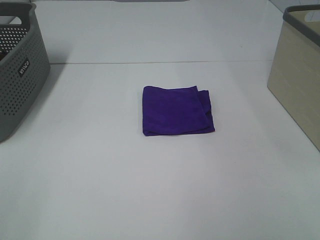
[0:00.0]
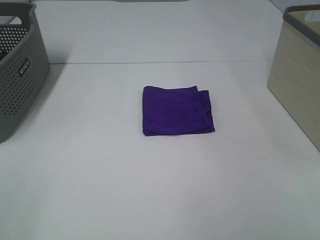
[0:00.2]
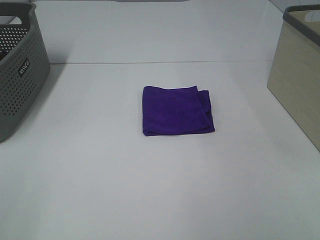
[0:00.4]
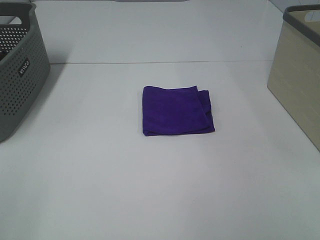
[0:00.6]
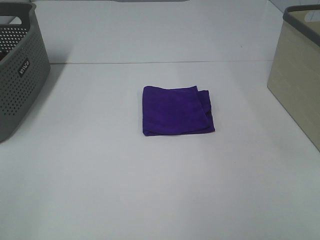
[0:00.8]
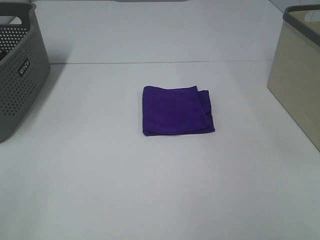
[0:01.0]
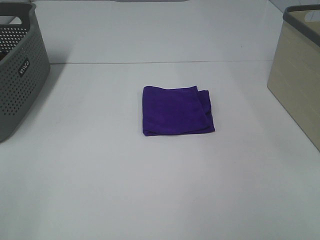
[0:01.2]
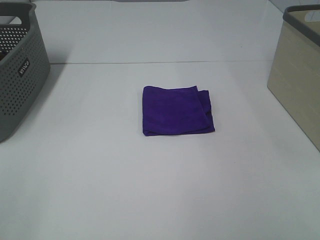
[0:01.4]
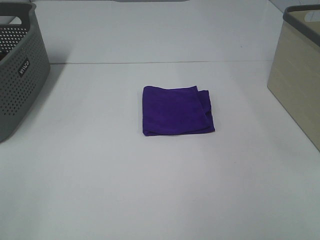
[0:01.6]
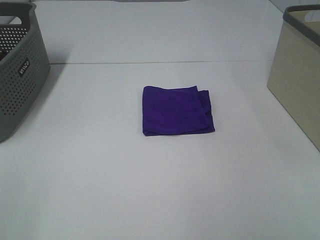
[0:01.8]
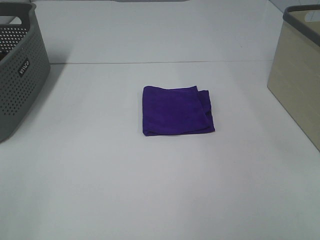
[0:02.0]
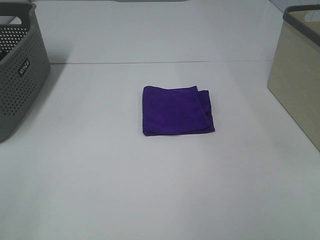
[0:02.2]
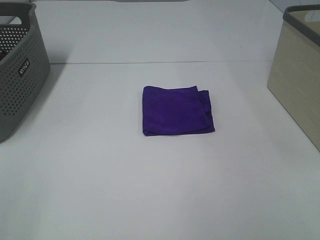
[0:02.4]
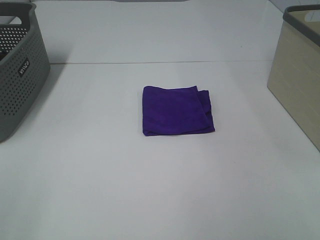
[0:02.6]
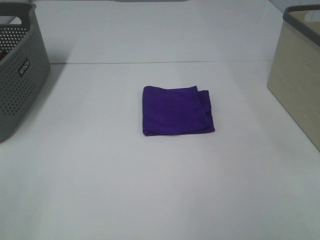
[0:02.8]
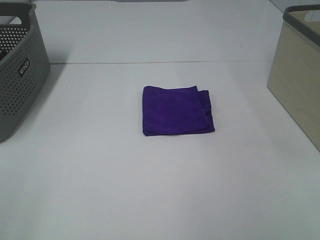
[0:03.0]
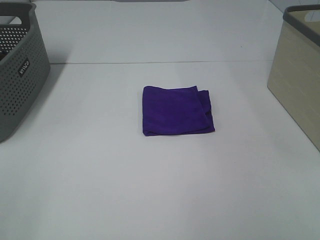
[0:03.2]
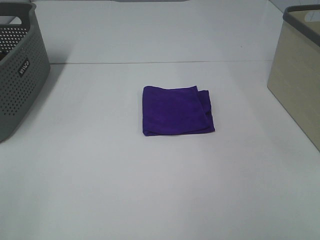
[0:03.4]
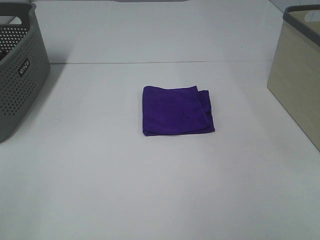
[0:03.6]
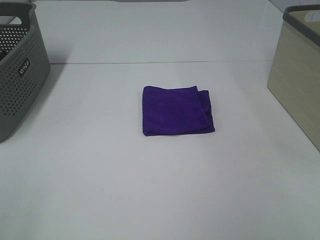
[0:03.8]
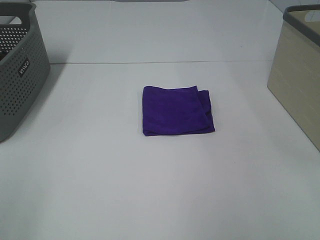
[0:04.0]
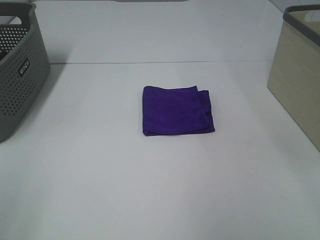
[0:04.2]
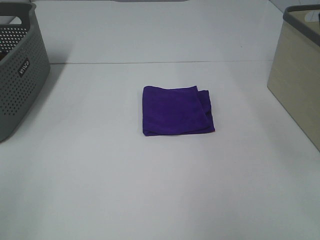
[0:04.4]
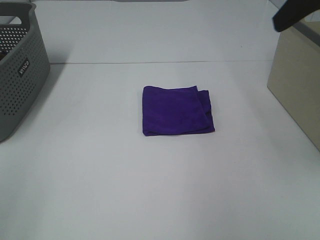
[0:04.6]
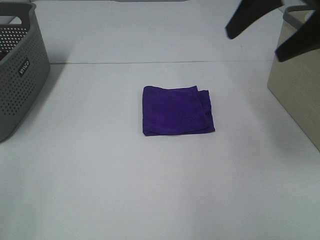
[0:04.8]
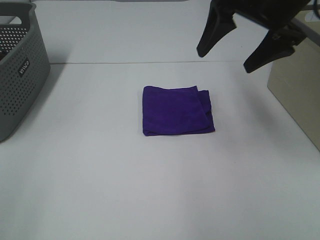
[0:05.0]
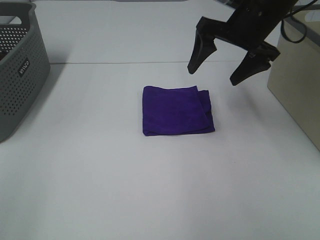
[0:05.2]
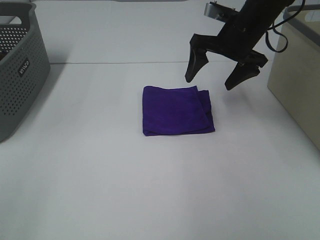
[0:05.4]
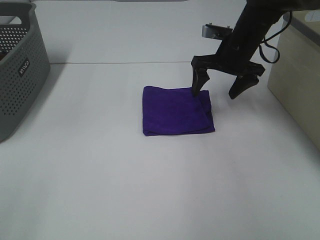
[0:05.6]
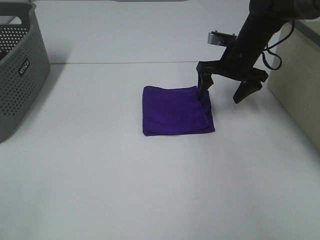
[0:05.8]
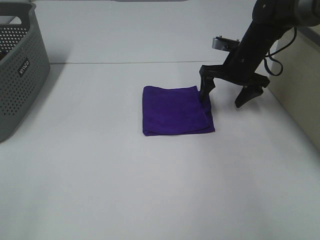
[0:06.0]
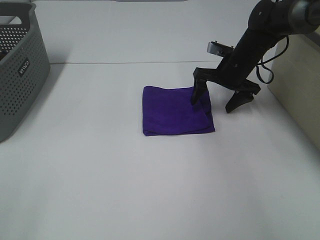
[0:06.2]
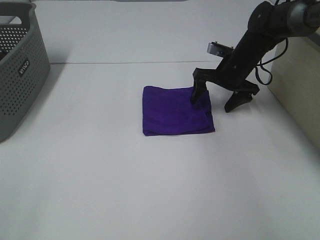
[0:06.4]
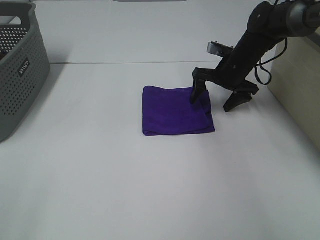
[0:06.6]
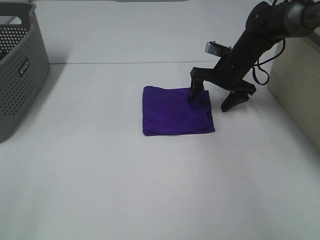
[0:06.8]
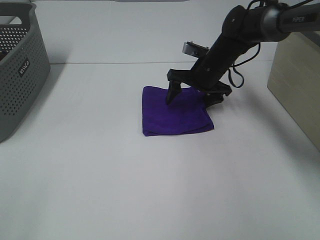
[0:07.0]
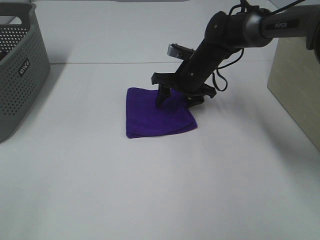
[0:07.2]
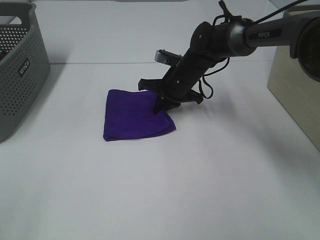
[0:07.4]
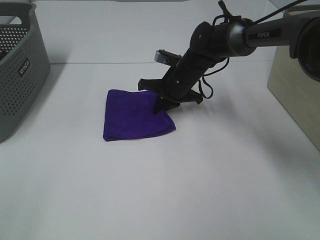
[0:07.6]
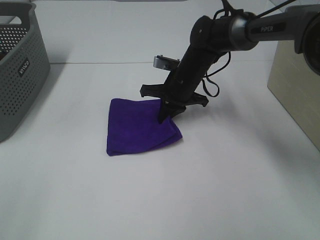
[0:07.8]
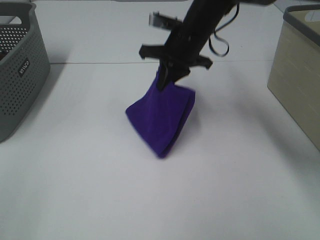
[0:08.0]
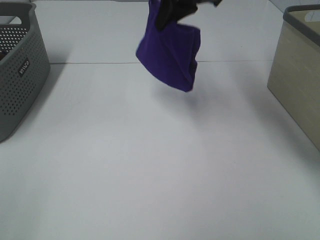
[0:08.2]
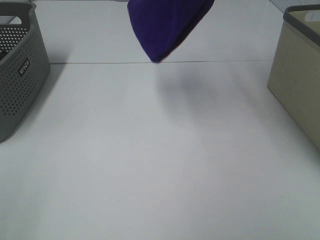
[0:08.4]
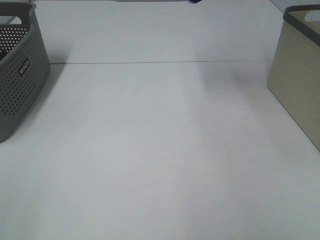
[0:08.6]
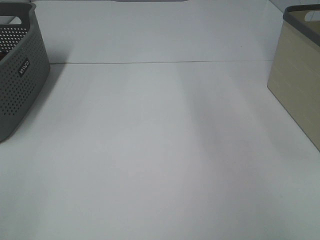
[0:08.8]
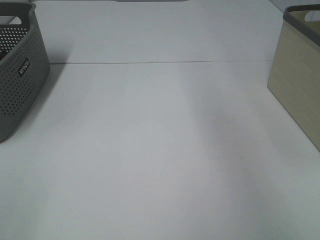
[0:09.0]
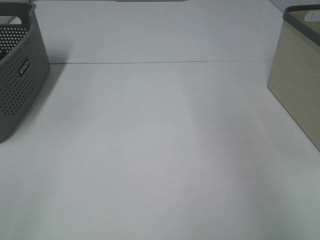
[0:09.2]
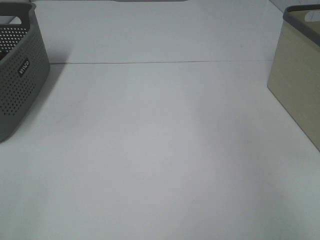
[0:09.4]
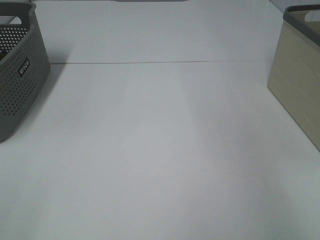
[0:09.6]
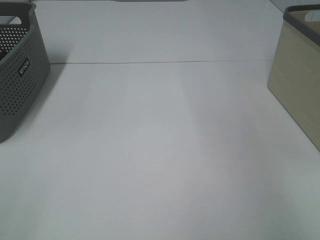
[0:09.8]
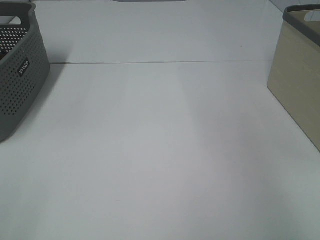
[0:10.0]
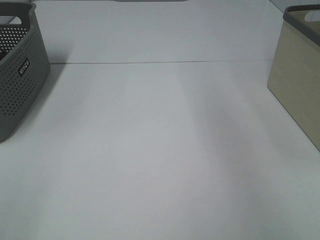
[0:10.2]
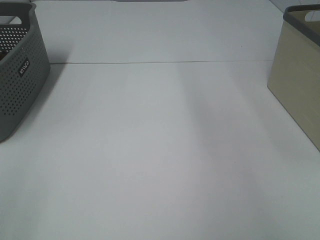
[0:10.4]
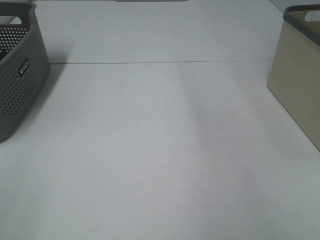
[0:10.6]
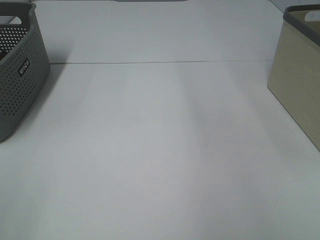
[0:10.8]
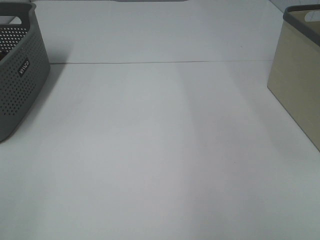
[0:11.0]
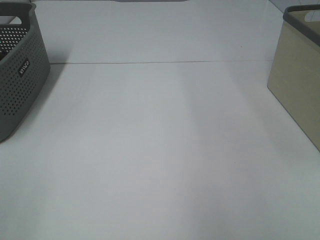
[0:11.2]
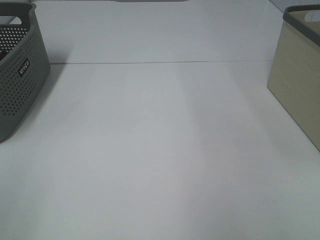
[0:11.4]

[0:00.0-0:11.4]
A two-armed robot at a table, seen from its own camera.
Step, 0:00.0 to 0:07.4: Right hand: grab the folded purple towel.
Step, 0:07.6 to 0:10.0: Right hand: place the purple towel in right basket.
0:00.0 to 0:02.8: Both grippers stay about where they are.
0:04.2 to 0:05.6: The right gripper goes some 40 cm forward and downward.
0:05.6 to 0:07.2: The right gripper travels to the left and downward by approximately 10 cm.
0:07.2 to 0:08.6: The right gripper travels upward by roughly 40 cm, and closes its fingers.

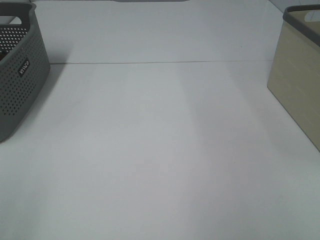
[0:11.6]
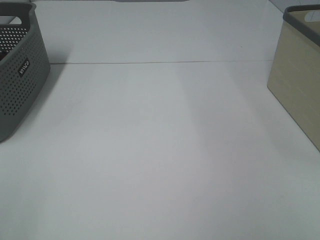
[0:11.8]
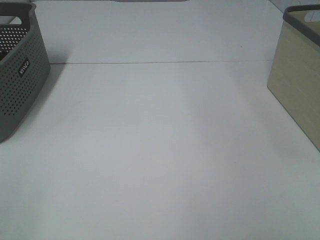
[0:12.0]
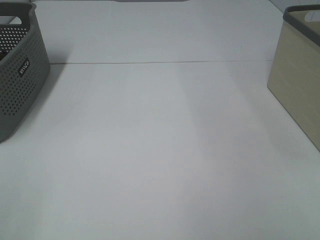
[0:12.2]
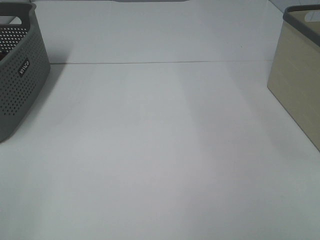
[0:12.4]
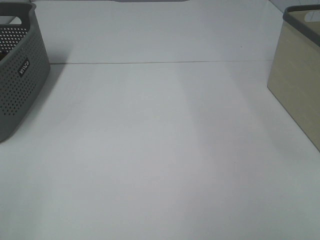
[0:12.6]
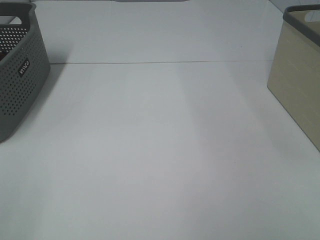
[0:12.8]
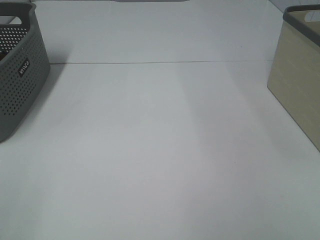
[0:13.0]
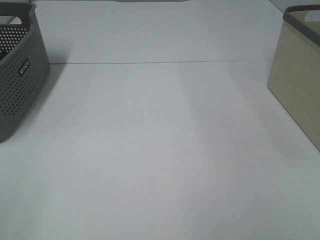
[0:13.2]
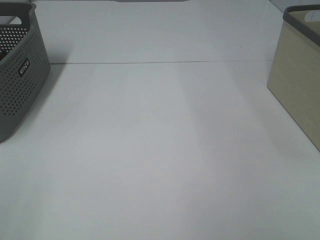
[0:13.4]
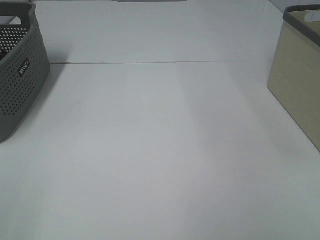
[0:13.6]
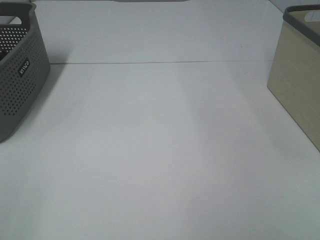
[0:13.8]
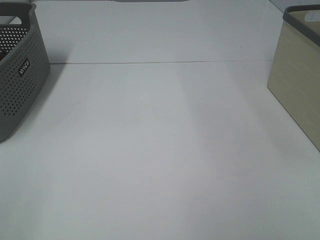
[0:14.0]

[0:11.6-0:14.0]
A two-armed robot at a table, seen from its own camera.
0:12.8 to 0:14.0: Both grippers stay put.

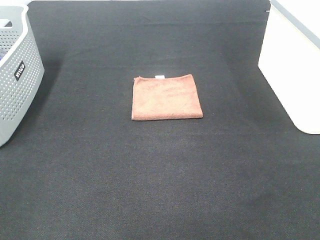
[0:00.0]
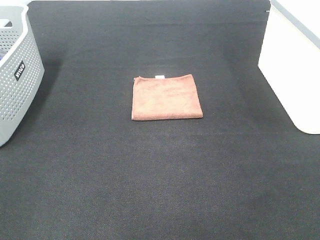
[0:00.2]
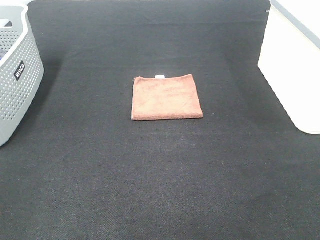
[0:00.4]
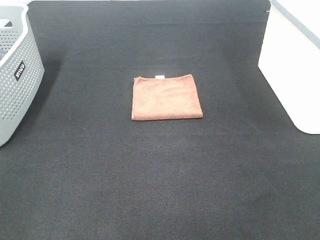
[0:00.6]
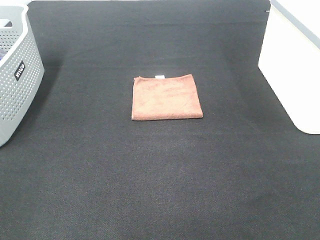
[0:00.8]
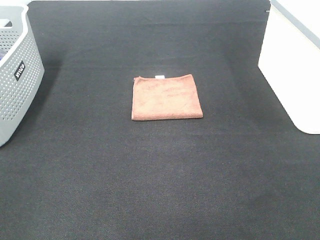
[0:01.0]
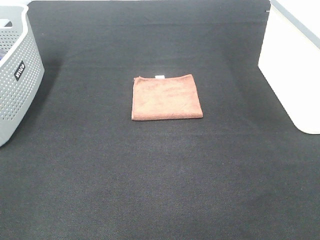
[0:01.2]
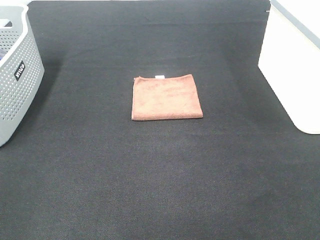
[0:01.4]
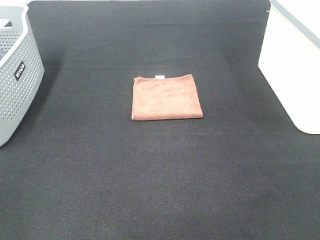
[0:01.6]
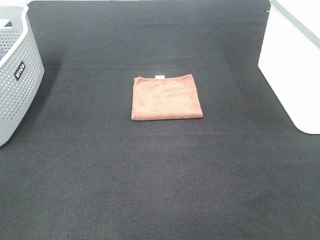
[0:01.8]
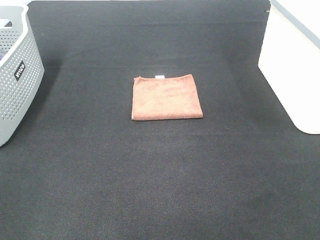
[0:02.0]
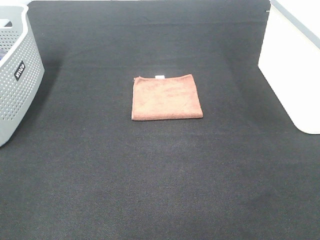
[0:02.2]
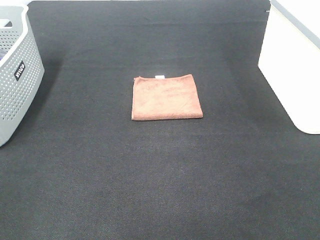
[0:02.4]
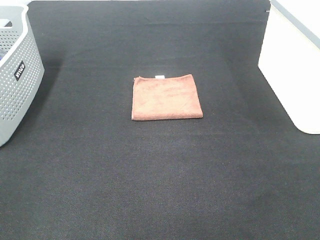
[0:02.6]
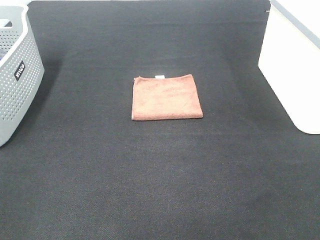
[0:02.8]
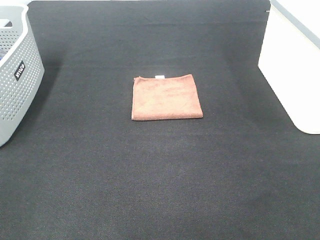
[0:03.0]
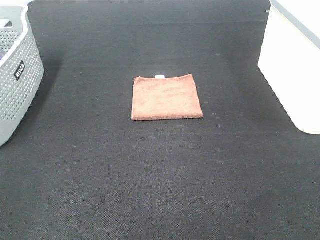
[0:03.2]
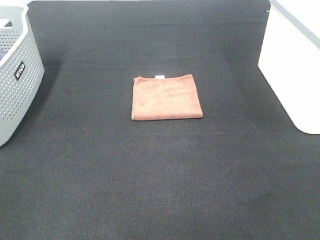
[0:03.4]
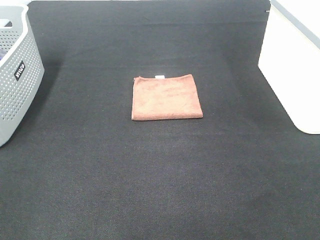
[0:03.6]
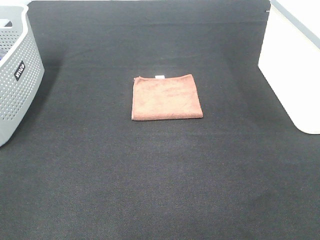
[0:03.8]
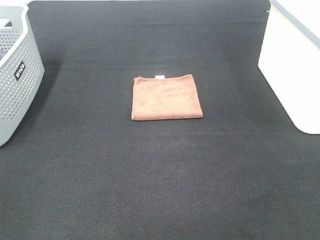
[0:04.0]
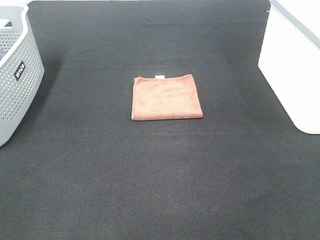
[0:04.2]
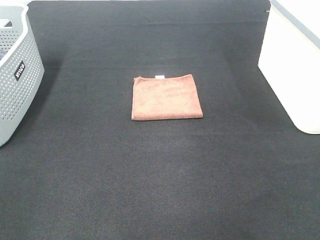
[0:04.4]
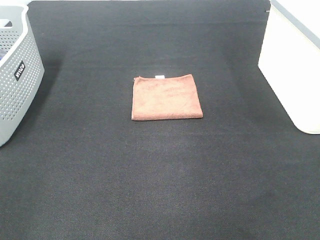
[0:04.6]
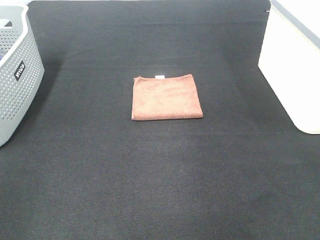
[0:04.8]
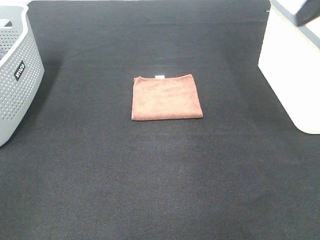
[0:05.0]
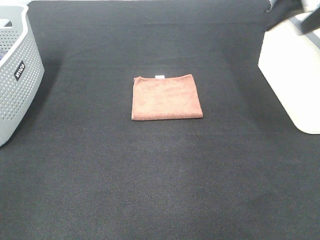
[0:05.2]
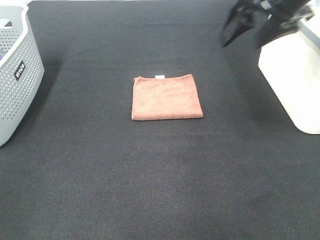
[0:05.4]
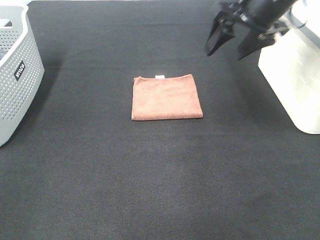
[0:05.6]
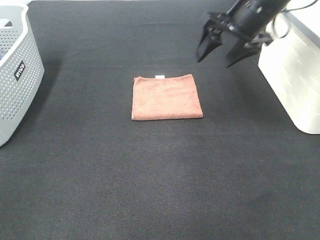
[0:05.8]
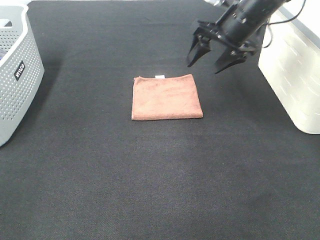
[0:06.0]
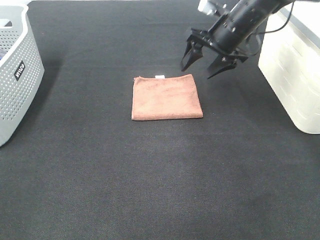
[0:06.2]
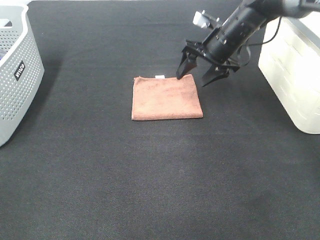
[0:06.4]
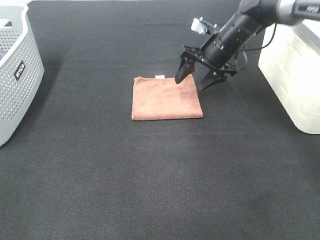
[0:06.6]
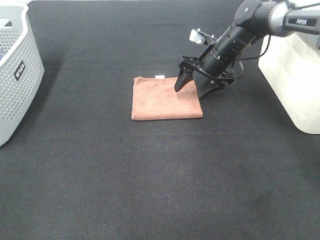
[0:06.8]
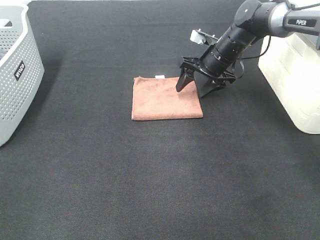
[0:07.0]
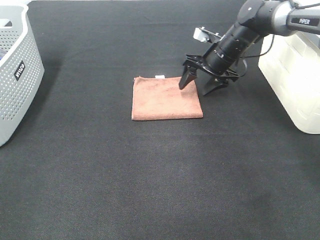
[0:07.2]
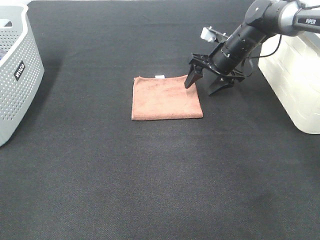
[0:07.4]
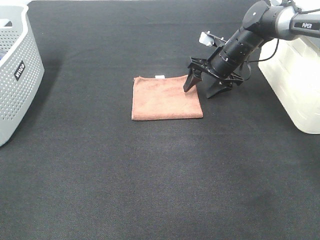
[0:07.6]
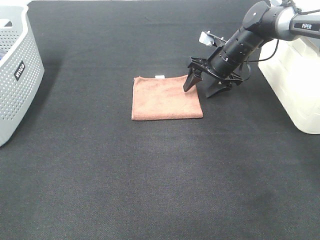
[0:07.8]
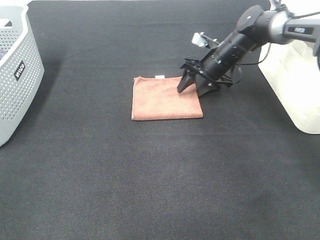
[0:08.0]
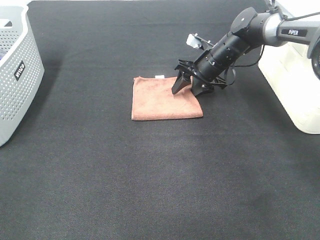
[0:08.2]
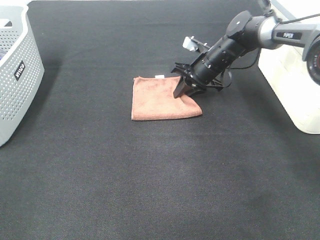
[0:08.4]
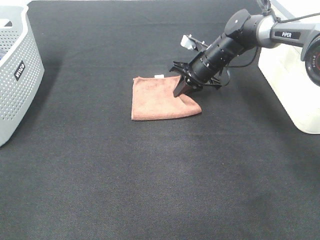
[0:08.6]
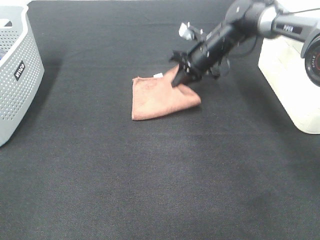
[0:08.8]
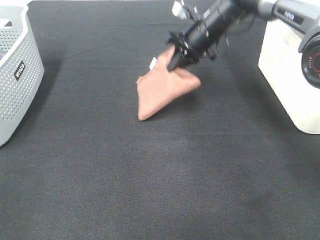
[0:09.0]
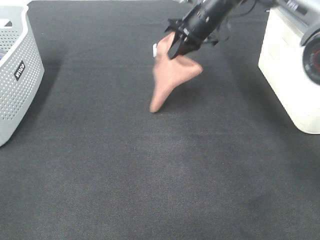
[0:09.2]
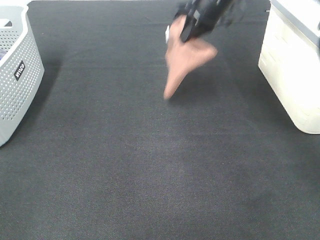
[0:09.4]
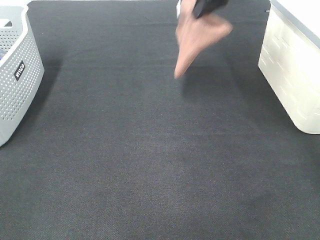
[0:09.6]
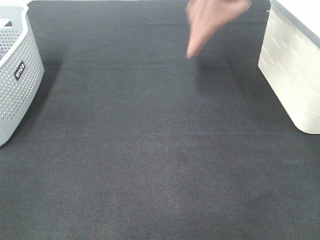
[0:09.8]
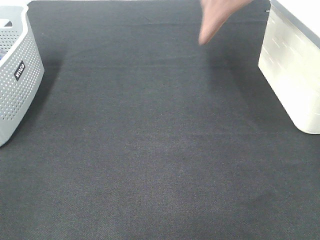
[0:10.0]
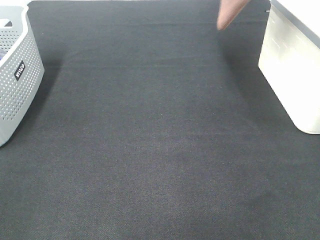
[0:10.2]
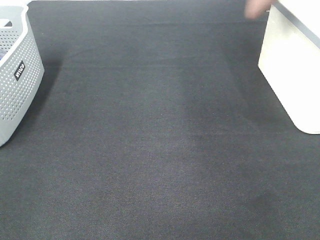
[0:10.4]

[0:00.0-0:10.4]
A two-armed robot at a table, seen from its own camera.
Step, 0:00.0 to 0:08.6: Right hand: grab the folded brown towel.
0:00.0 to 0:03.0: Both grippers stay about where they are.
0:04.4 to 0:06.0: The right gripper heads forward, downward and to the left, covering about 35 cm.
0:06.0 to 0:07.4: The right gripper travels downward and forward by approximately 10 cm.
0:07.4 to 0:09.0: The right gripper travels to the left and upward by some 10 cm, and closes its fingers.
0:09.0 to 0:10.4: The right gripper goes roughly 30 cm upward and to the right.
